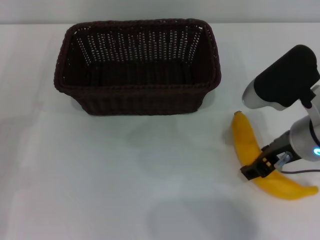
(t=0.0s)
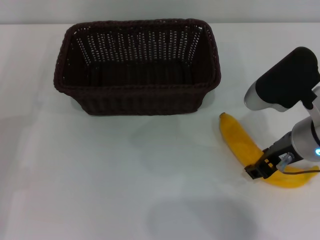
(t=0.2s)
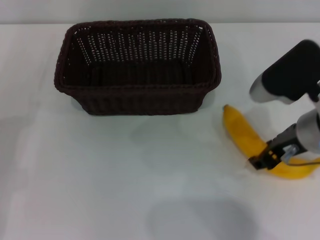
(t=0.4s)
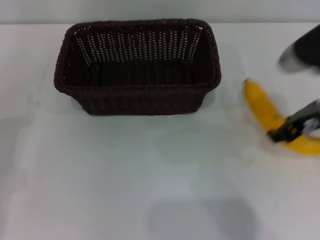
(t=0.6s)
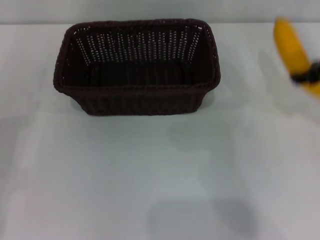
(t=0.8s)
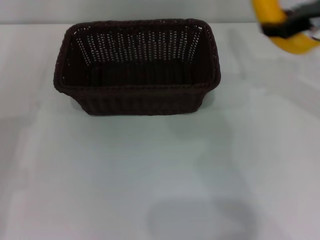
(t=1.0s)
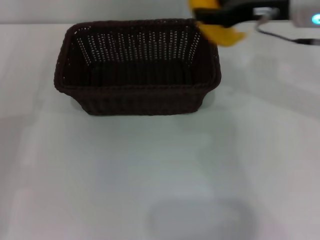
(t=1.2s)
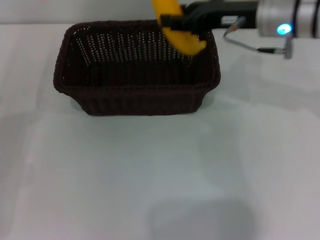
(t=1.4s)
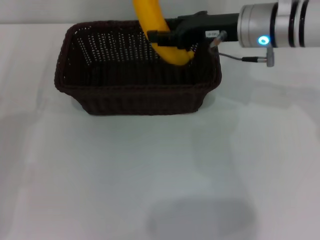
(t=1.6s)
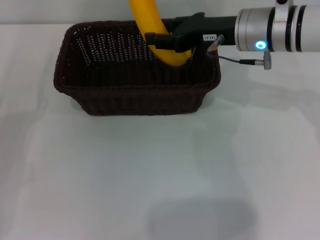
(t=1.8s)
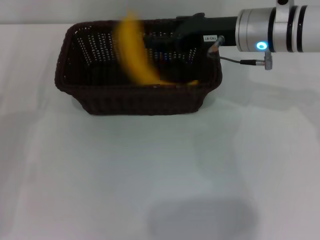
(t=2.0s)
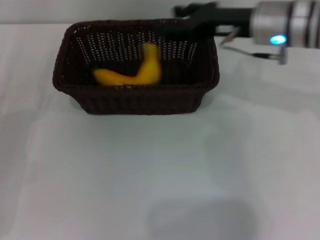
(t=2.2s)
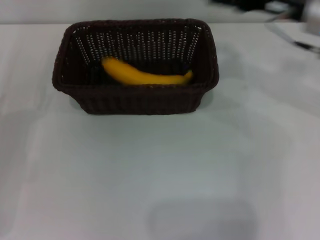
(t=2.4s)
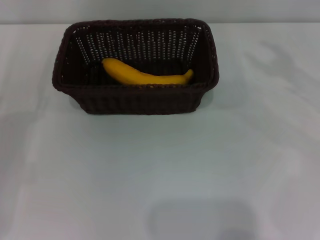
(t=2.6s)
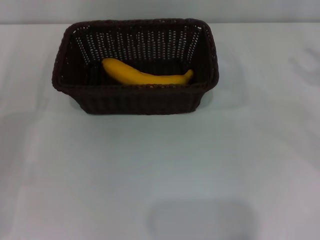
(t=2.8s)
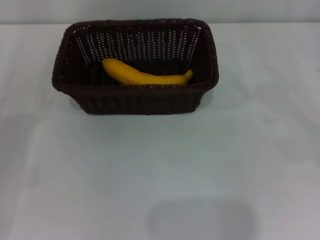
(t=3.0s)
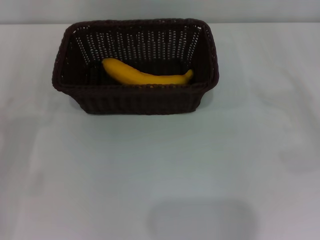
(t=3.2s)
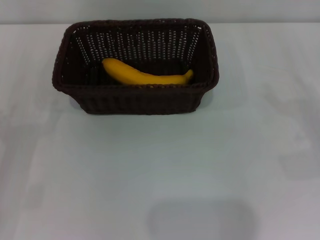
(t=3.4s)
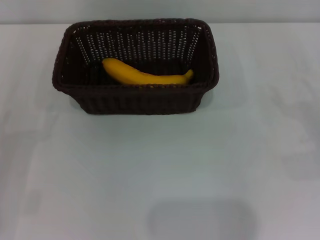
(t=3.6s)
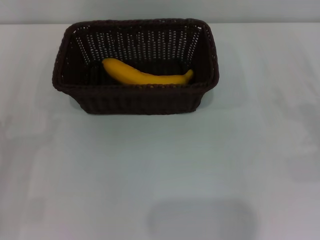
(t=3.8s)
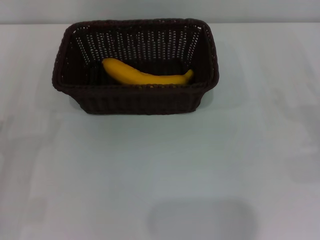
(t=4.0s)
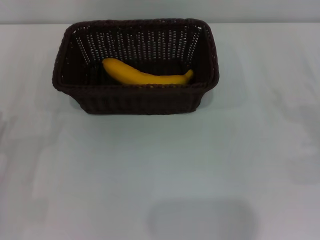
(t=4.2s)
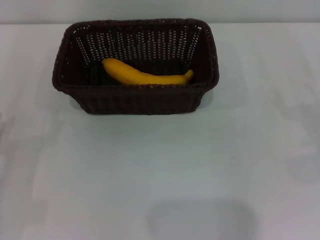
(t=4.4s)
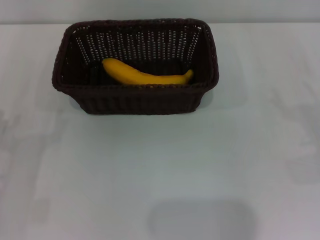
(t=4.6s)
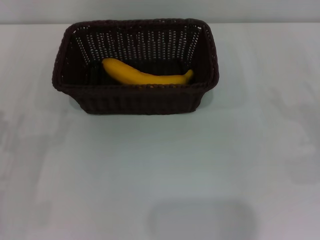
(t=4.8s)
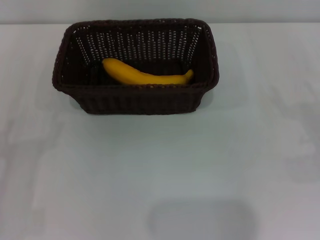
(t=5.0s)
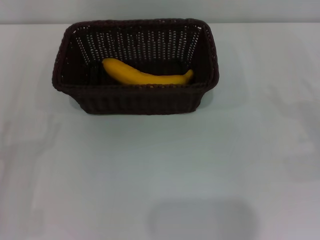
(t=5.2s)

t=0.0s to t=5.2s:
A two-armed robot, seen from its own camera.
Step, t=0.8s to t=2.2s: Place the banana into the dark basket with the right gripper.
t=0.0s to t=1.8s: The right gripper travels forward by about 15 cm, and closes.
t=1.8s to t=3.4s: The right gripper travels to the right, backward and downward by about 30 cm, and opens up.

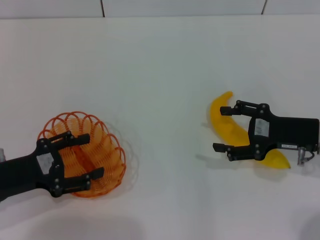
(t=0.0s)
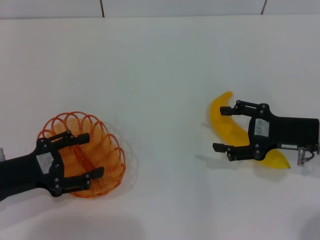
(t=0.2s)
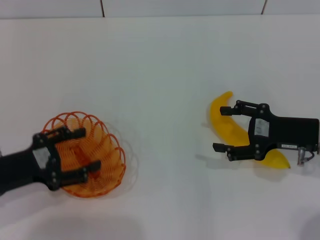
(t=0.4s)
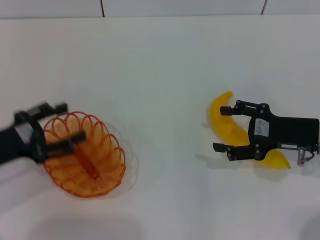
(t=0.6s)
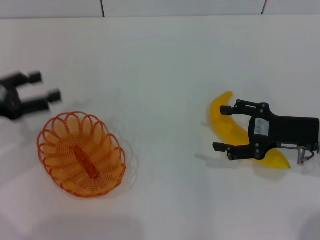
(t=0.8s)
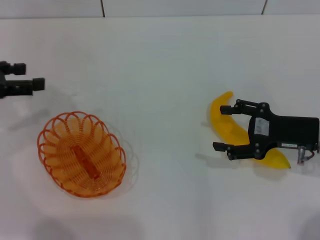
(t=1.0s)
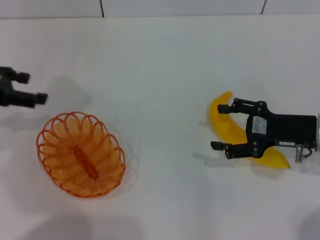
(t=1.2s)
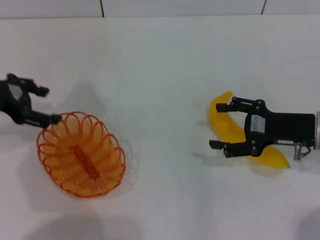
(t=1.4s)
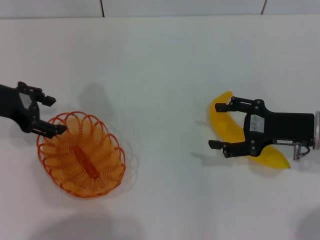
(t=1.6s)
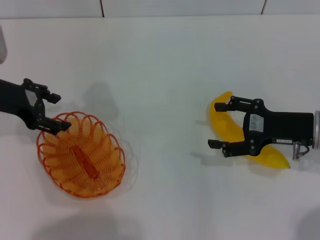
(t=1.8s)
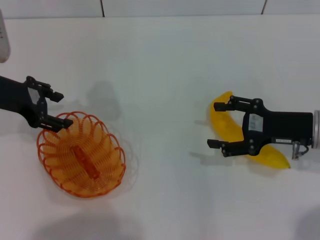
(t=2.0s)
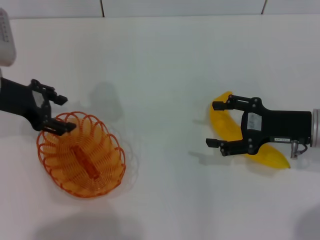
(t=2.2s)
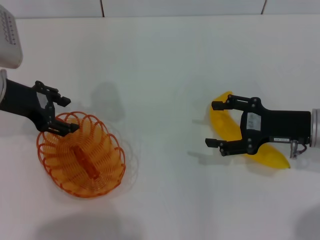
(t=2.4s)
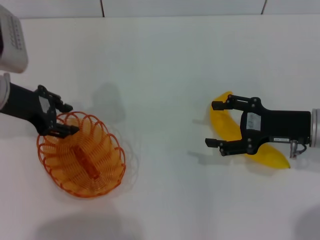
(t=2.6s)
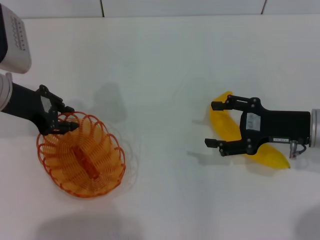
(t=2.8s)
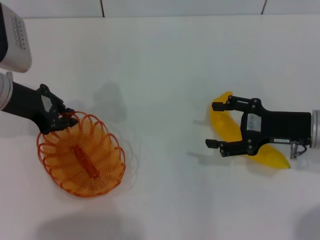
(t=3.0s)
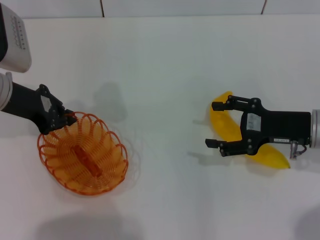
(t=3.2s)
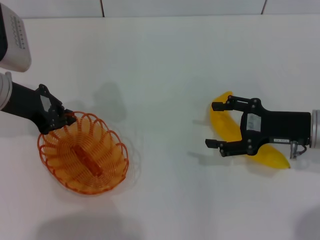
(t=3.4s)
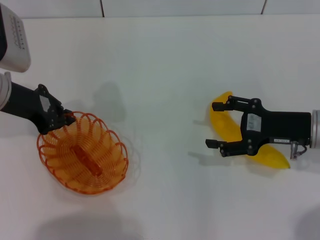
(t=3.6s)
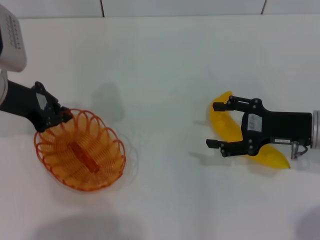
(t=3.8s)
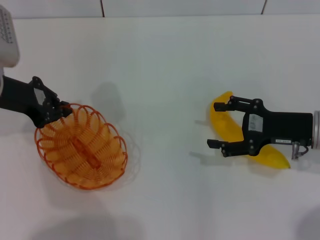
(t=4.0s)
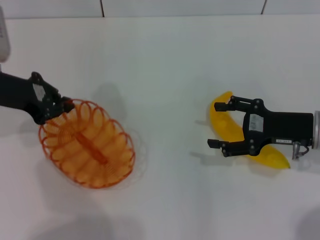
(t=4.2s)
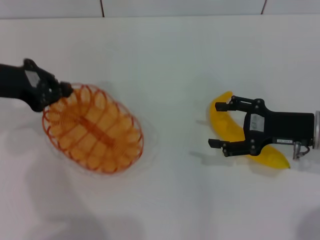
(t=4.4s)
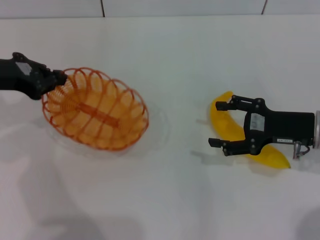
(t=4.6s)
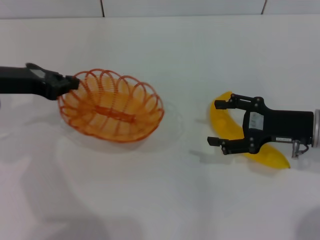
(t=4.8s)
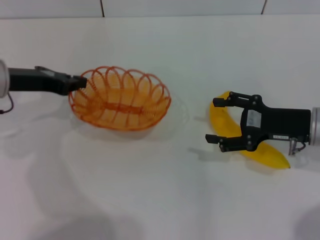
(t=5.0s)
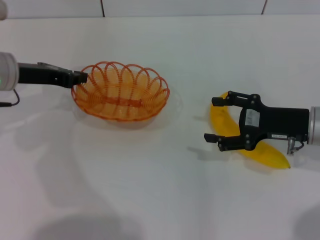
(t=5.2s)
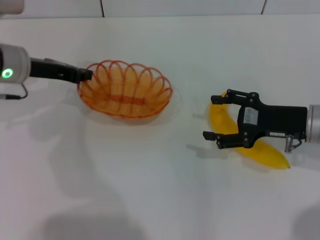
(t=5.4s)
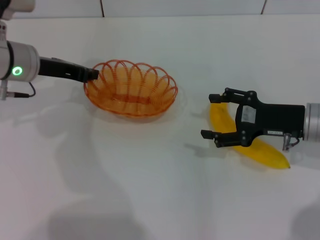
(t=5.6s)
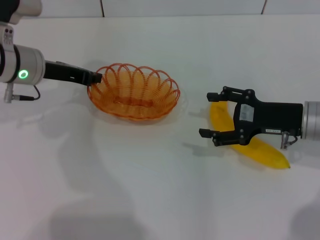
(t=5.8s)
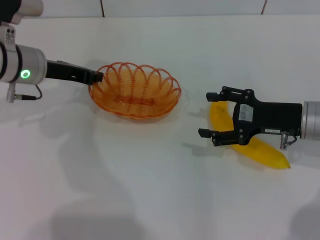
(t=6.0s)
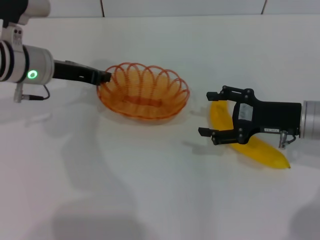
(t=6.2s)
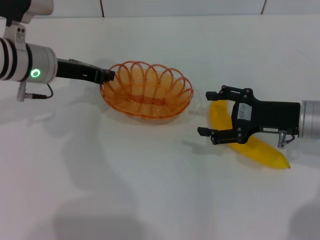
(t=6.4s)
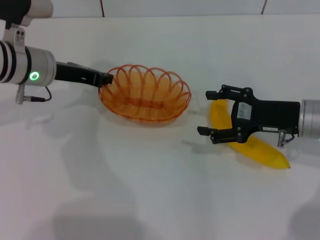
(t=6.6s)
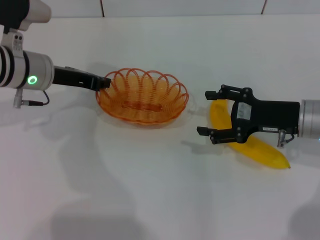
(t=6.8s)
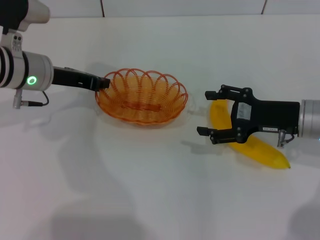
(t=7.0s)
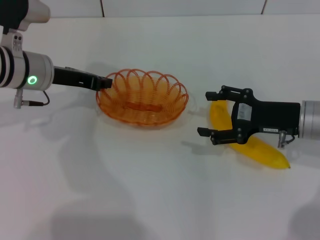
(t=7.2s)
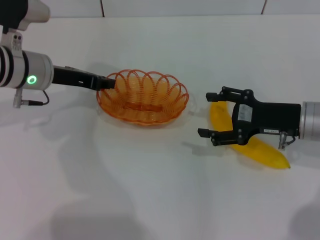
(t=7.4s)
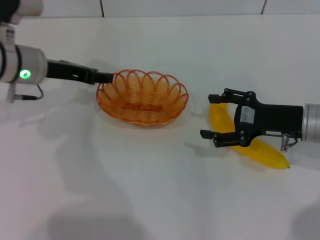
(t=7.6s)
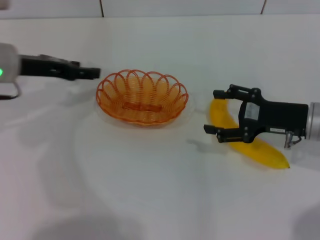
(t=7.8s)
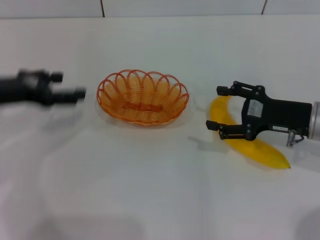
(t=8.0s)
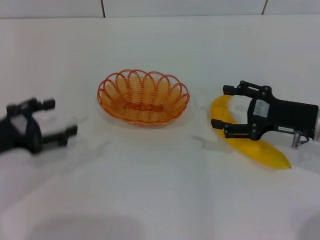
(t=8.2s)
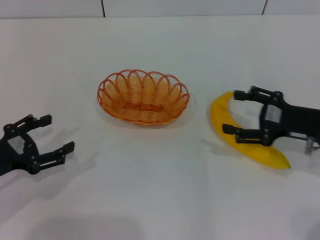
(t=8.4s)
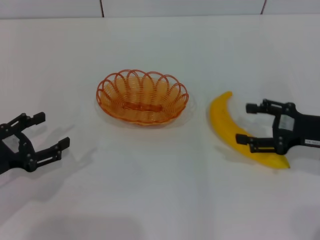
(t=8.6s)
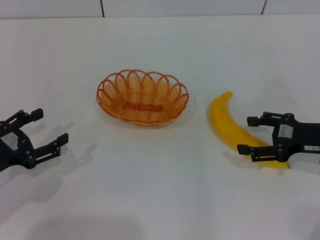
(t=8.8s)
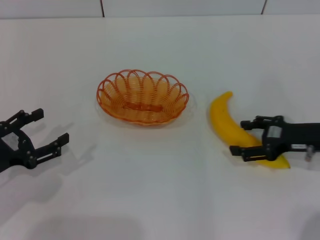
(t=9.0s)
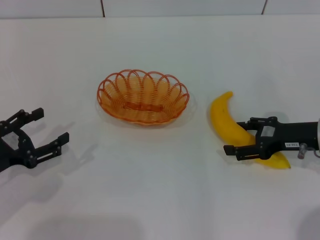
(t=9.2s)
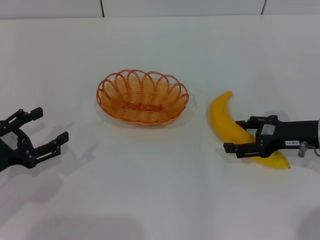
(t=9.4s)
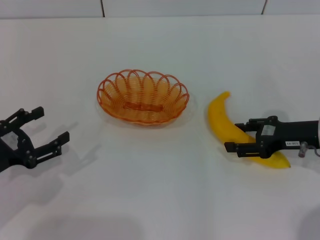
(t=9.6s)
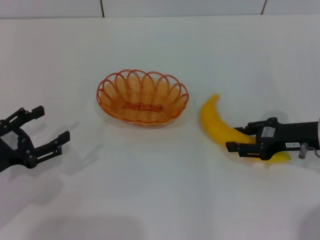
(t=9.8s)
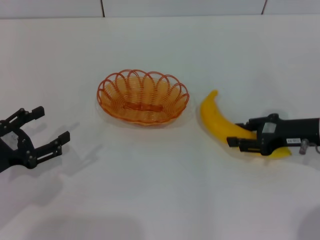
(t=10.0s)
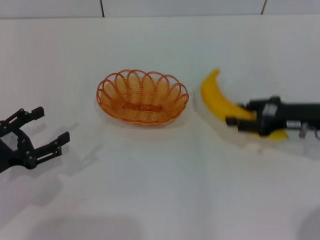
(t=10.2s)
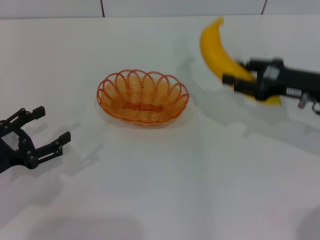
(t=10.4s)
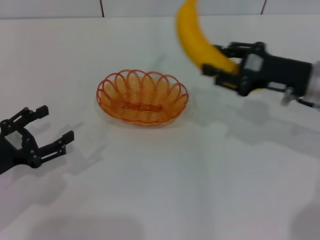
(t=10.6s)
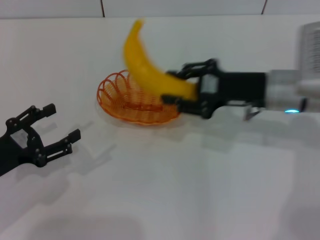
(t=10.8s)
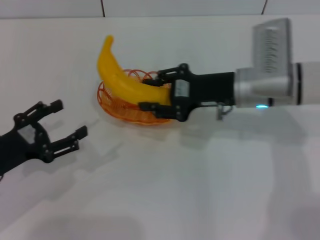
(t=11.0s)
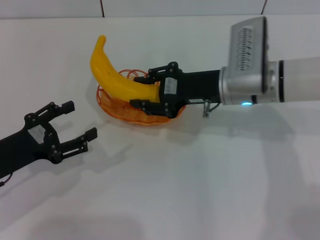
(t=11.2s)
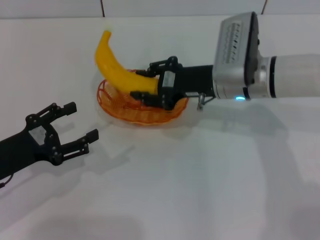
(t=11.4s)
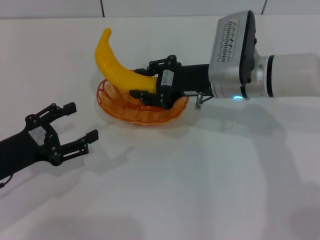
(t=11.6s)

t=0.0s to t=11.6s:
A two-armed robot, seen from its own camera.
Step, t=0.0s to t=4.2s: Pick up the basket with the left gripper.
Step, t=4.4s to t=7.8s: Place the basket in the center of view with the left gripper.
Step, t=8.0s to t=10.0s: Pick up the banana with the right gripper.
t=0.0s to t=1.4s: The left gripper heads forward and upward, covering some 15 cm.
t=1.4s to t=2.8s: The left gripper changes place by some 5 cm.
t=2.8s to t=4.4s: The left gripper closes.
t=4.4s to t=5.8s: The left gripper is displaced to the right and forward by approximately 10 cm.
t=5.8s to t=7.2s: The grippers make only small movements.
t=7.2s to t=8.8s: The left gripper travels backward and to the left by roughly 20 cm, and opens, while the right gripper heads to the right, covering roughly 5 cm.
t=8.8s to t=10.2s: The right gripper closes up.
t=10.2s to t=11.6s: The right gripper is displaced to the left and forward by about 15 cm.

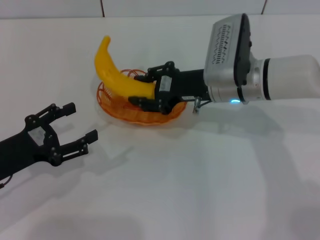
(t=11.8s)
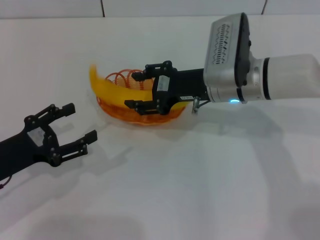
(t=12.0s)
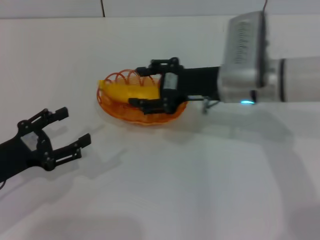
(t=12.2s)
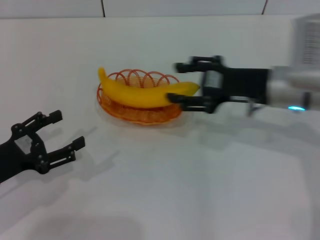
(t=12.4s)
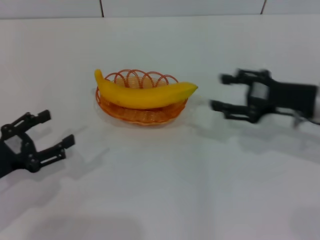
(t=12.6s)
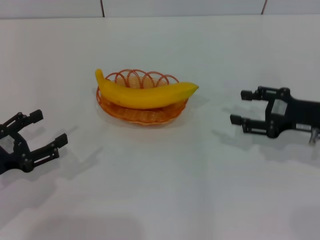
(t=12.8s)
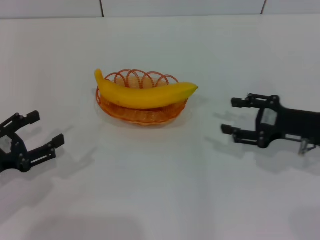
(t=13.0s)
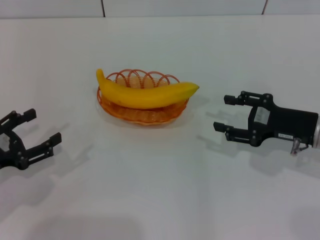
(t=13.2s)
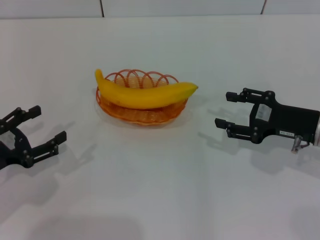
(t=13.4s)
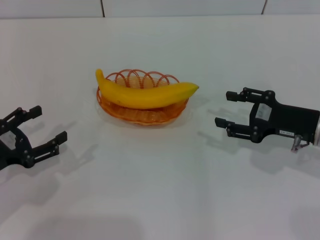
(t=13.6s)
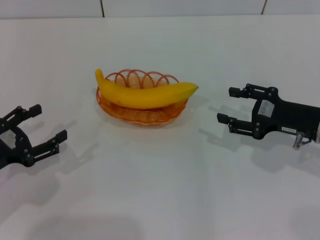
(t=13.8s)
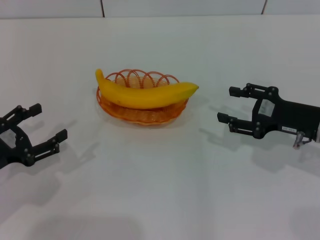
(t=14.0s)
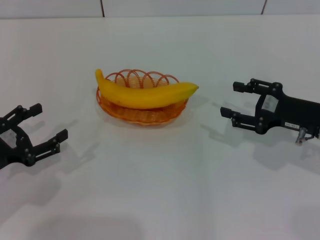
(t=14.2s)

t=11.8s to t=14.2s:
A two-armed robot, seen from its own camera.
t=11.8s to t=13.0s: The right gripper heads to the right and backward, covering roughly 20 cm, and opens its fingers.
t=13.0s to t=14.2s: The grippers move only a little.
